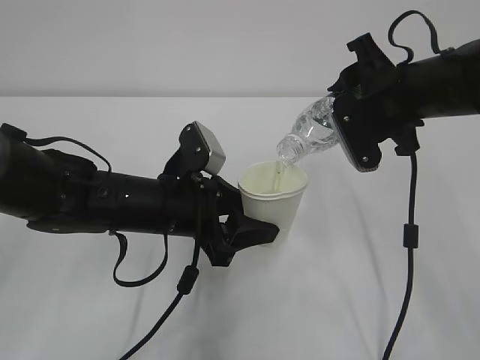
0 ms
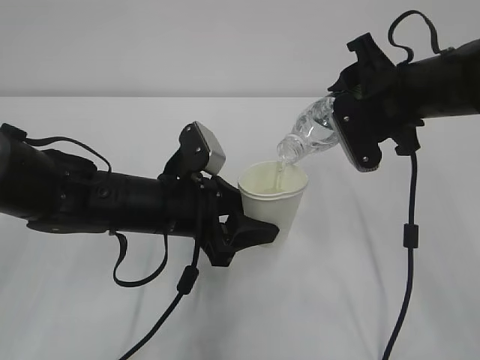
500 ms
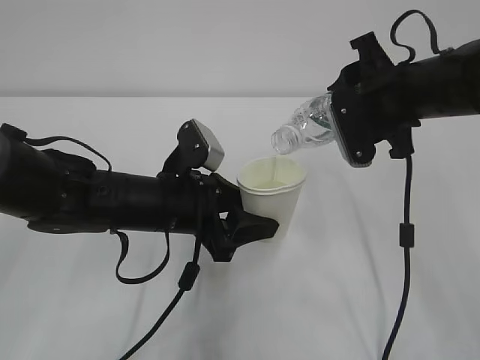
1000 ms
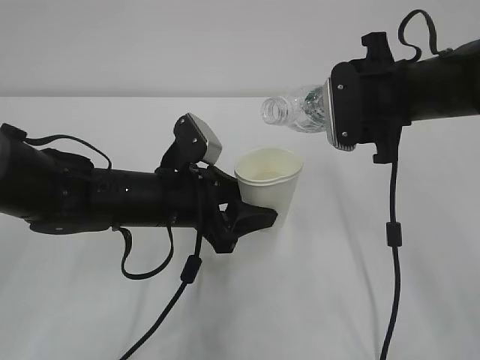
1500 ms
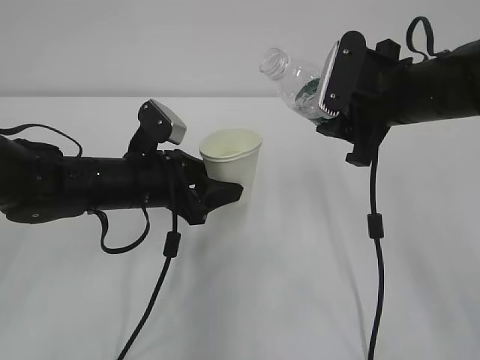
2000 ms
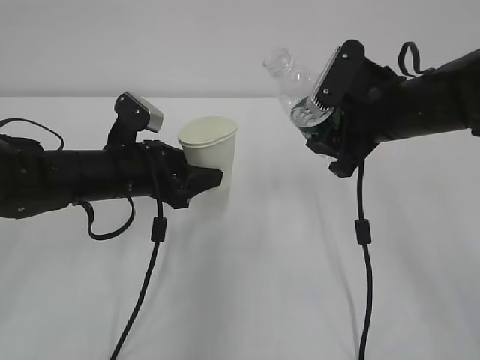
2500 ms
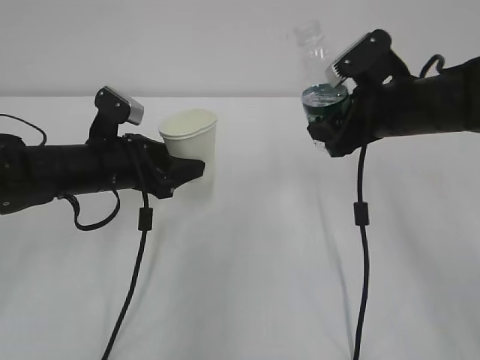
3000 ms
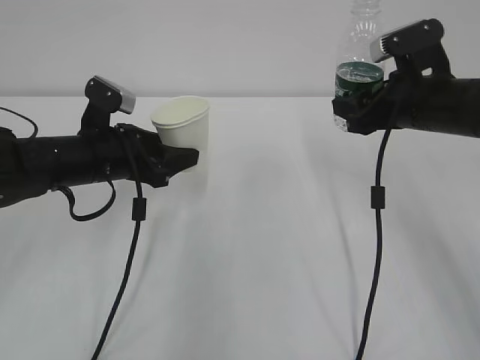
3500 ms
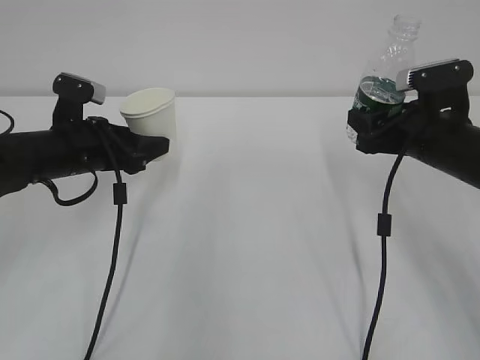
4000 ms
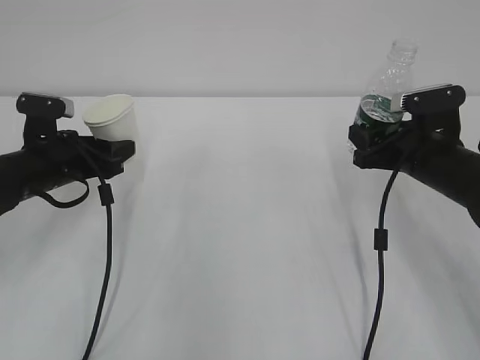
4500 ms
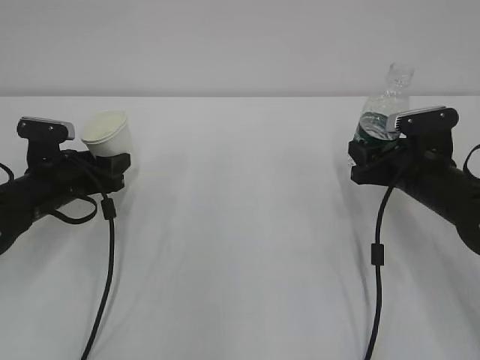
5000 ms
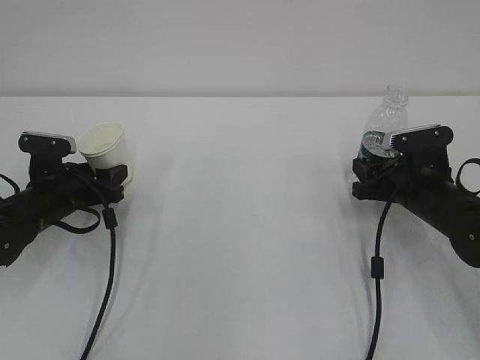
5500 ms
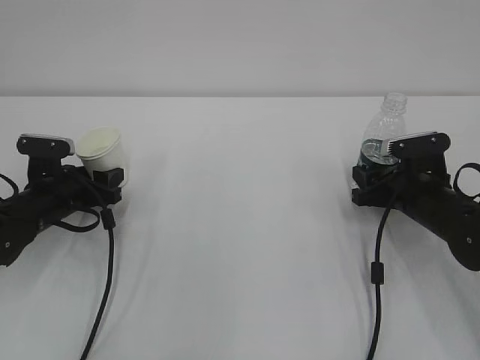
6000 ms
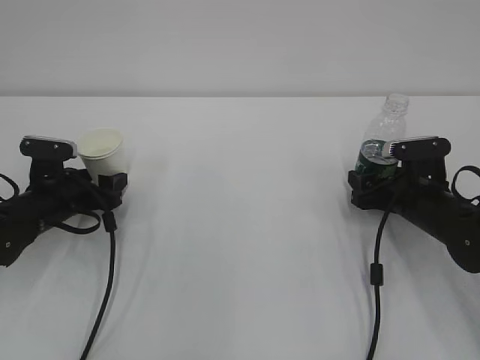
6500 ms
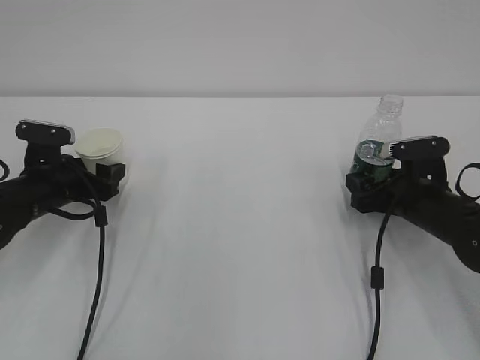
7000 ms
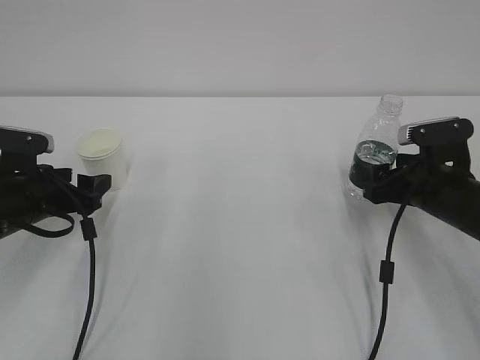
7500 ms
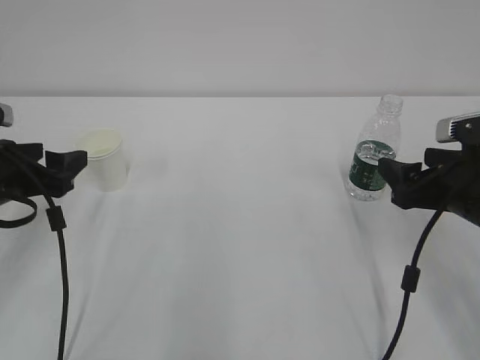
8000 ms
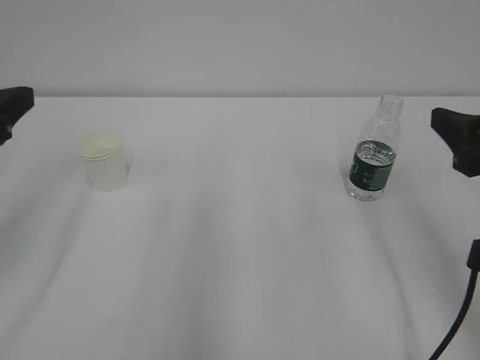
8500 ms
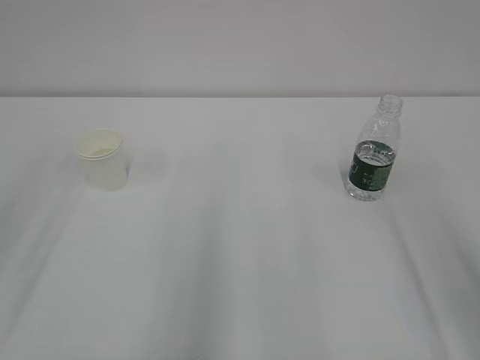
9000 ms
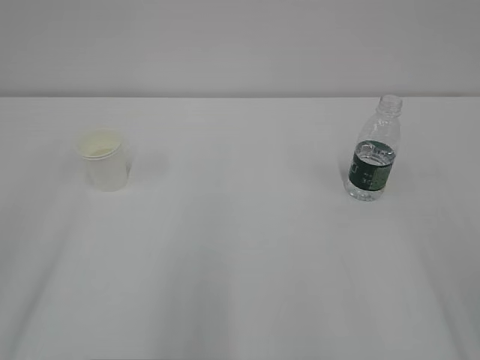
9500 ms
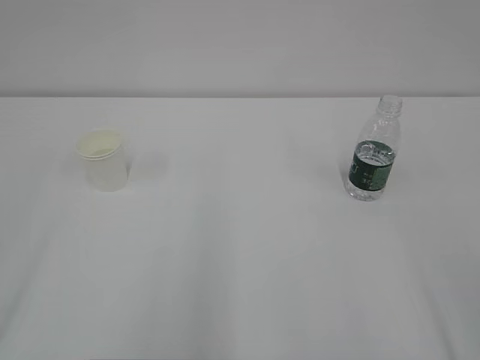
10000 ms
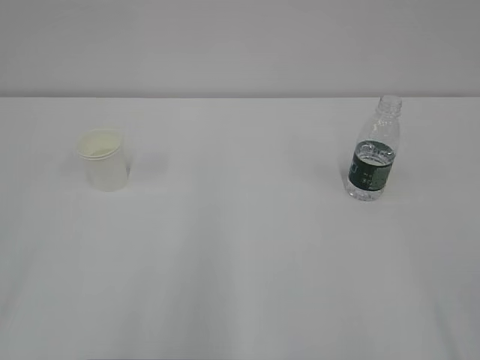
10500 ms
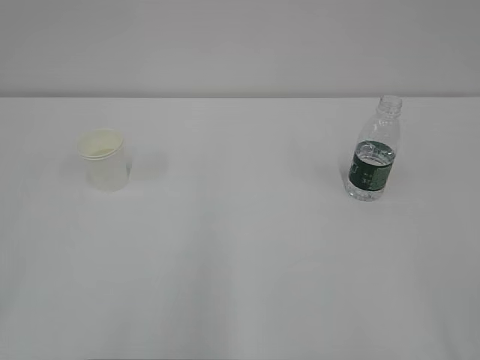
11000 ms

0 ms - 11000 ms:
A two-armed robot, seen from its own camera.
0 ms - 2000 ms: The left gripper changes place by some 5 cm.
2000 ms - 3500 ms: The right gripper ends up some 5 cm from where it was, while the left gripper goes approximately 5 cm to the left.
3500 ms - 5500 ms: The right gripper moves downward, about 15 cm. The left gripper travels downward and to the left by approximately 10 cm.
5500 ms - 7500 ms: The right gripper opens up. The left gripper shifts by some 5 cm, and opens its fingers.
7500 ms - 9000 ms: Both grippers move upward and backward, approximately 25 cm.

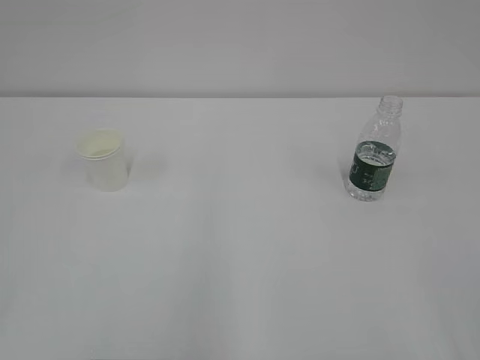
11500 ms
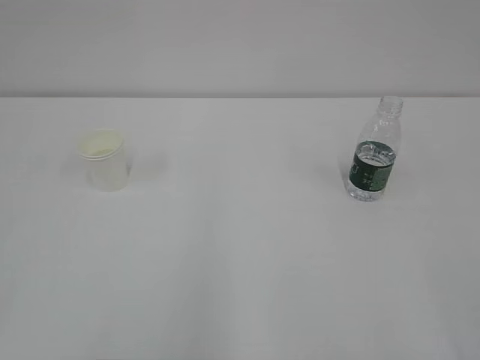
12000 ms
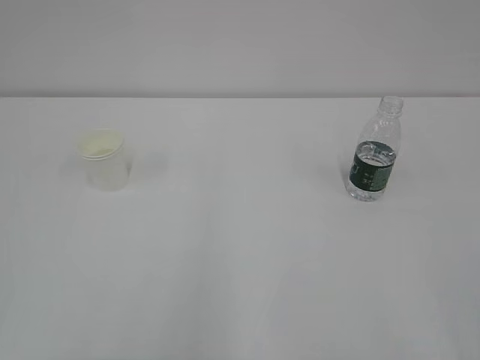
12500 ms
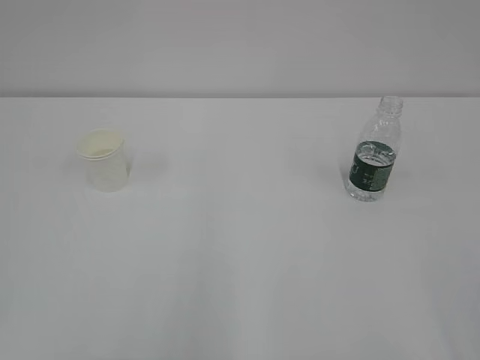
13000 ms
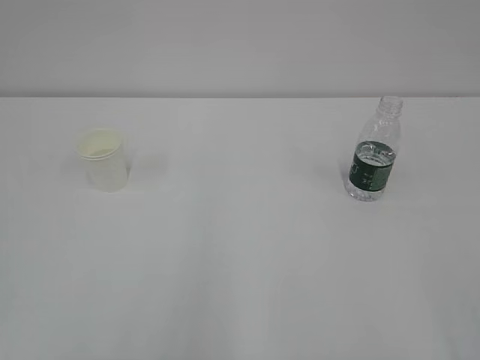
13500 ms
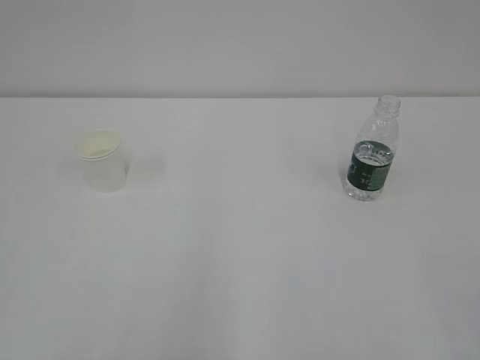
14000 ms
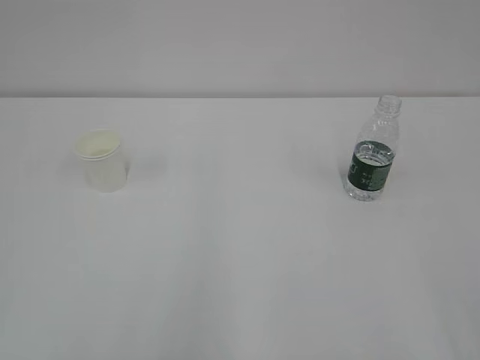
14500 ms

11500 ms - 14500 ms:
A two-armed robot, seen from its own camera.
13000 ms - 14500 ms: Both grippers stay put.
